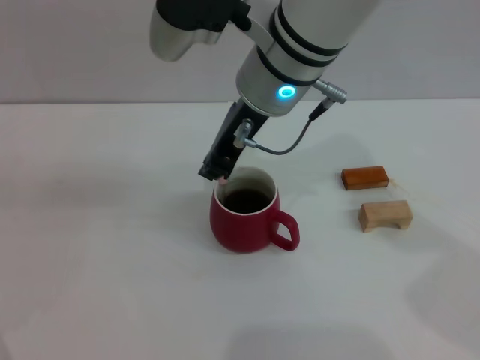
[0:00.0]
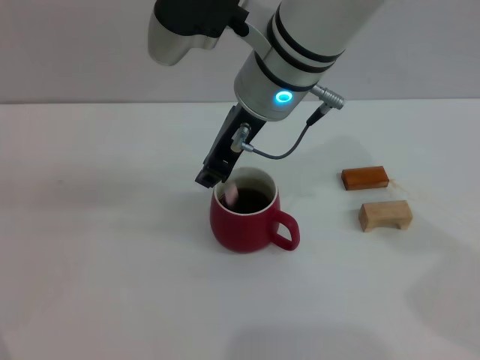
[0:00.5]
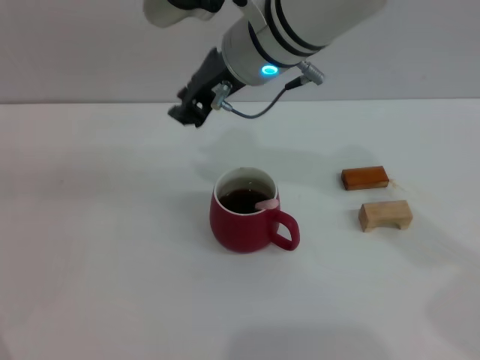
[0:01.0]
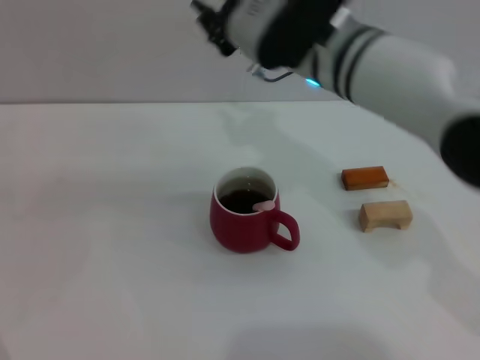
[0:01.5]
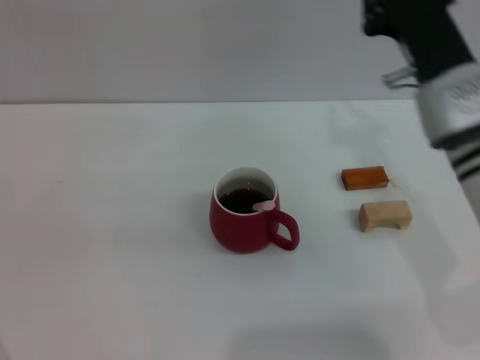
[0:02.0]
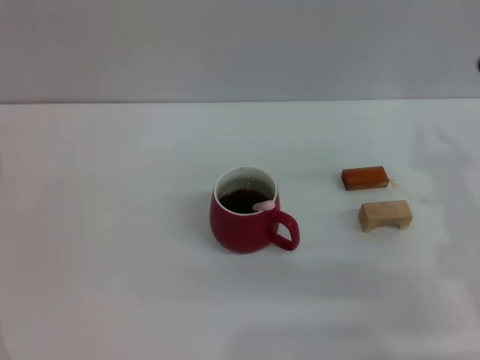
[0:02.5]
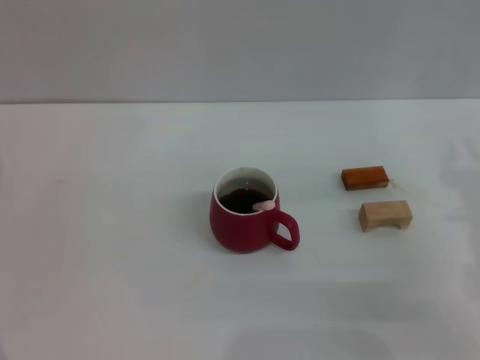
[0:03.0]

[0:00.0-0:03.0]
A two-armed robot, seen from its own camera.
Task of the whole recording: Move the red cup to the center, lift the pink spoon, stir it three times in the cup, and put the spoon into the cup.
0:00.0 to 0:01.5: The right gripper shifts some 5 cm to the right.
0:01.5 to 0:03.0: The right gripper moves to the right, downward and backward, approximately 25 cm.

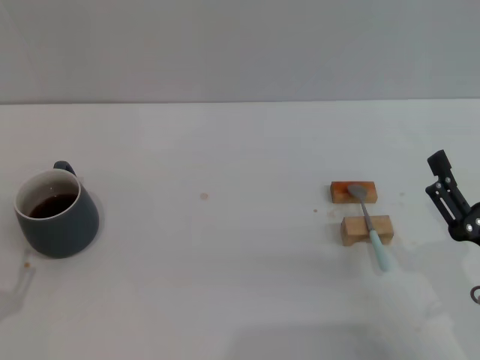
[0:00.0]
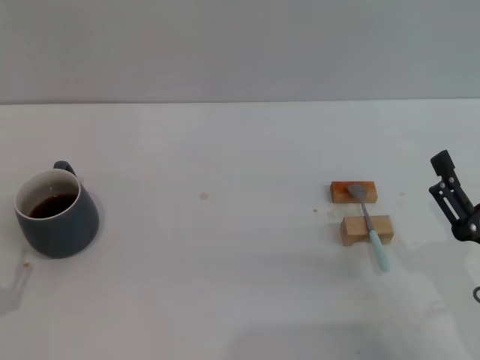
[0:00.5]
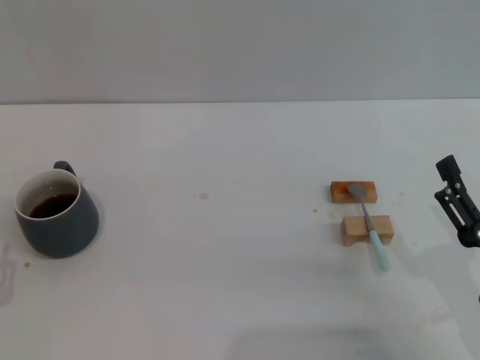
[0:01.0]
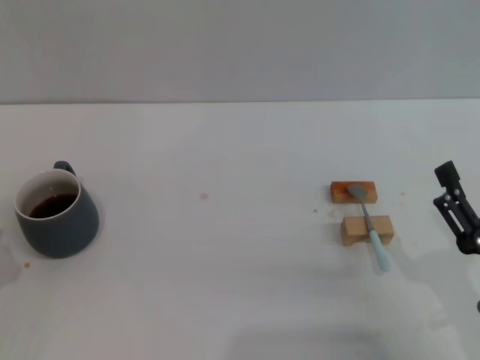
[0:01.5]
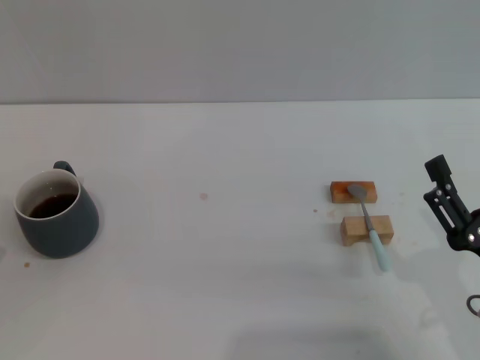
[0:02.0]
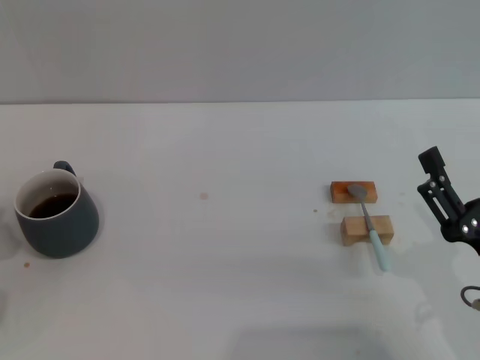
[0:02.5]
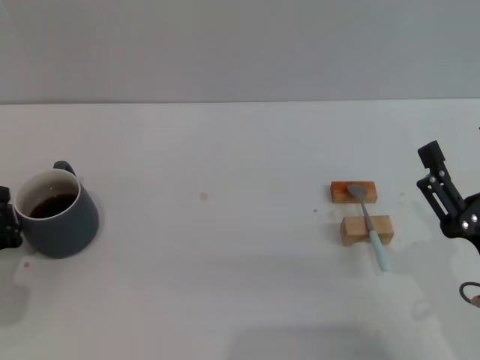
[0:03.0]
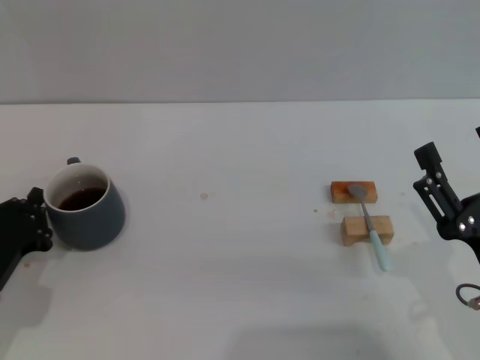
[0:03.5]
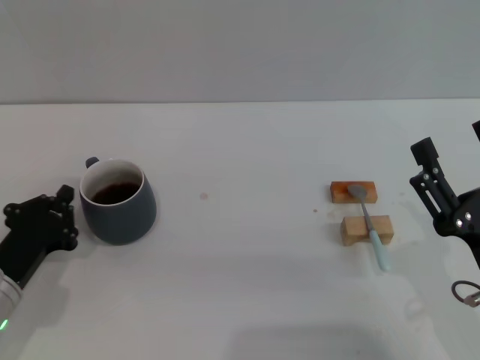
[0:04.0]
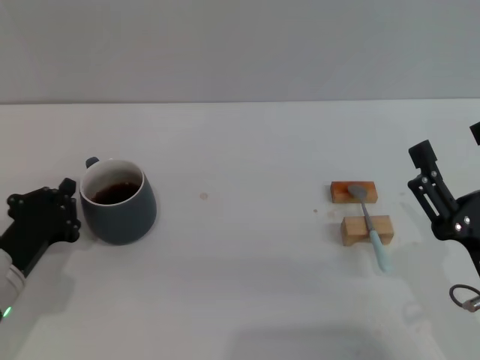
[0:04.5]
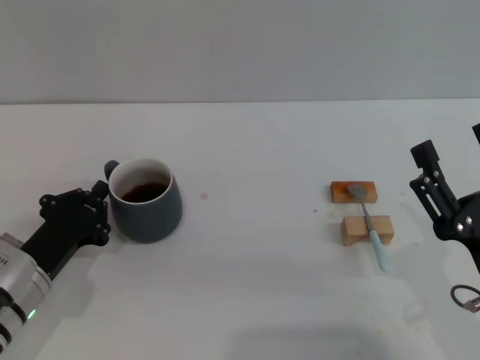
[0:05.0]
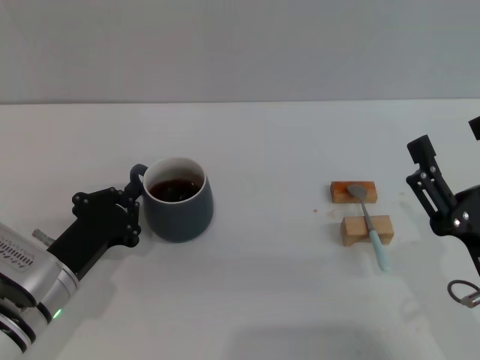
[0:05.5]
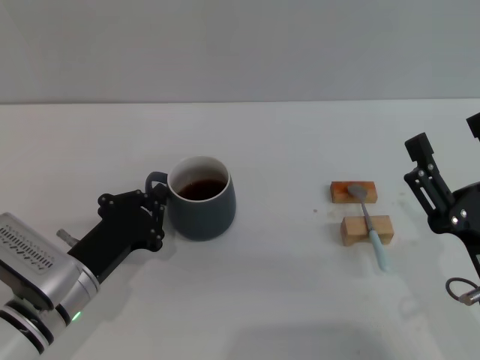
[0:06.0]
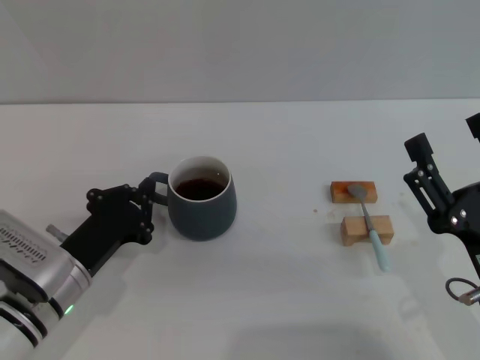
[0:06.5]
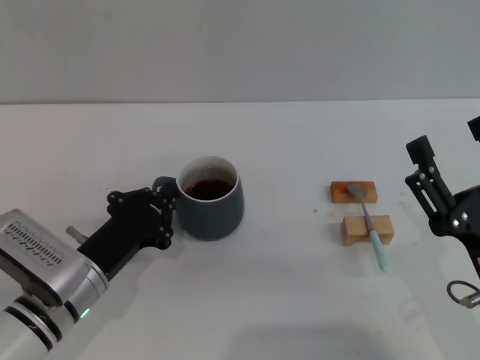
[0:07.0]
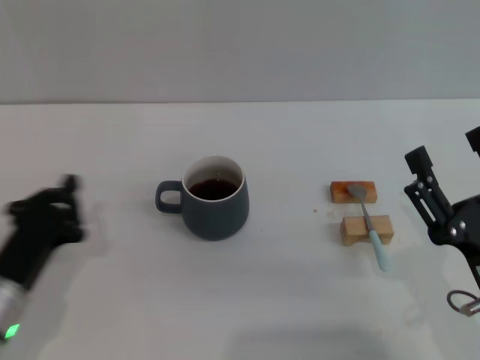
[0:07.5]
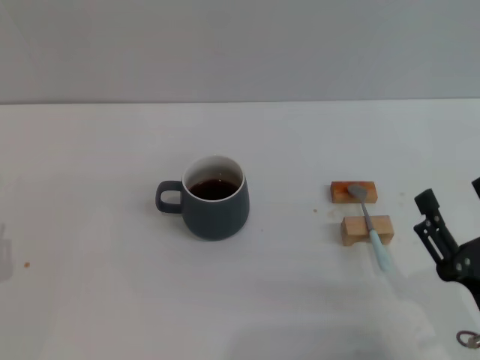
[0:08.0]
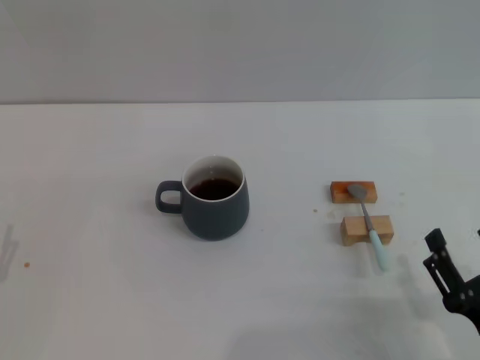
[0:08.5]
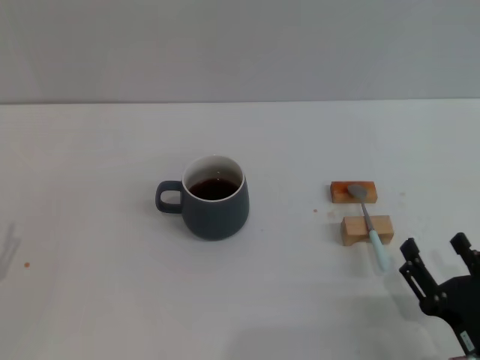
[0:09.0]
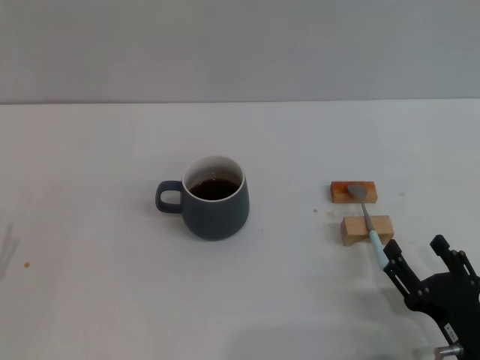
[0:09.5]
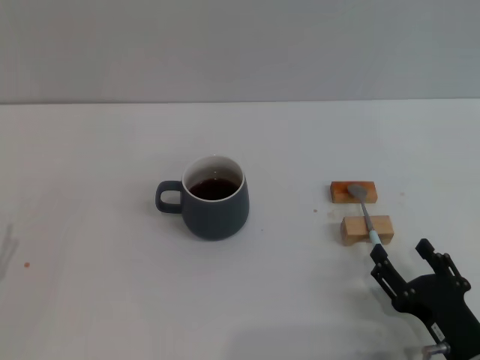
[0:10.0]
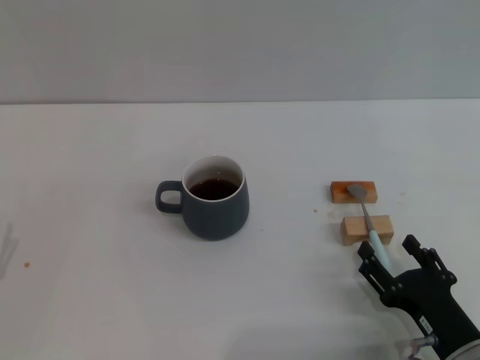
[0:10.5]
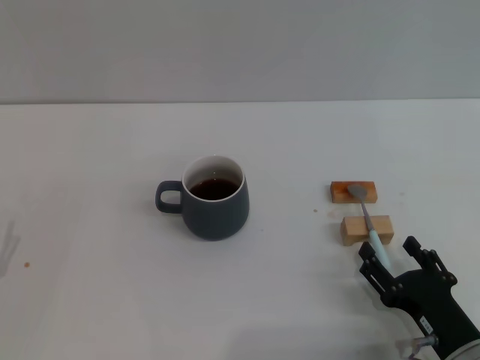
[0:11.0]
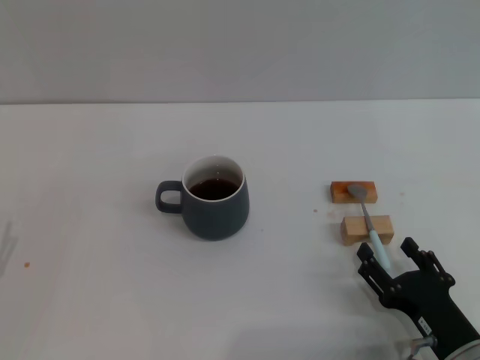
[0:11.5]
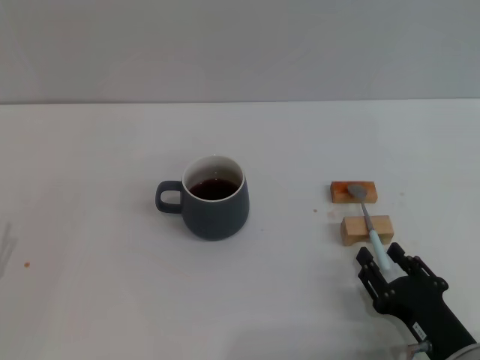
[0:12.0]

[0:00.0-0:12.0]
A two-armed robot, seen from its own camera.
Task of the whole recording: Move the grey cup to the center, lift the blue spoon, stir it three times in the cup, and put the spoon into the cup.
Step, 0:00.0 to 0:07.0: Move the cup with coffee to the center of view with the left gripper.
0:02.0 to 0:04.0: The left gripper is displaced to the right by about 5 cm.
0:04.0 to 0:06.0: The left gripper goes roughly 5 cm to the right.
0:06.0 to 0:08.0: The left gripper shifts some 15 cm to the left and backward.
0:08.0 to 0:10.0: The right gripper ends up some 5 cm from where it was.
0:10.0 to 0:12.0: Neither gripper changes place.

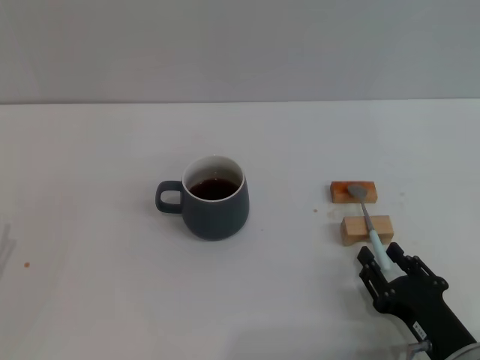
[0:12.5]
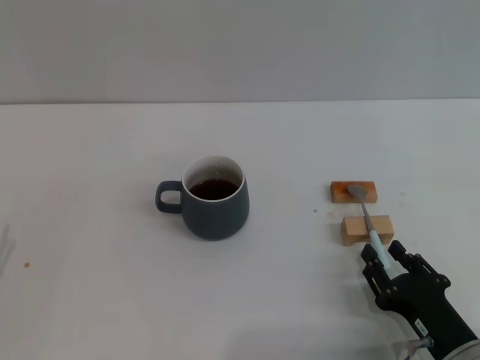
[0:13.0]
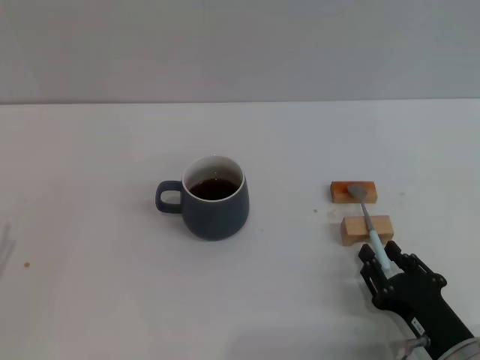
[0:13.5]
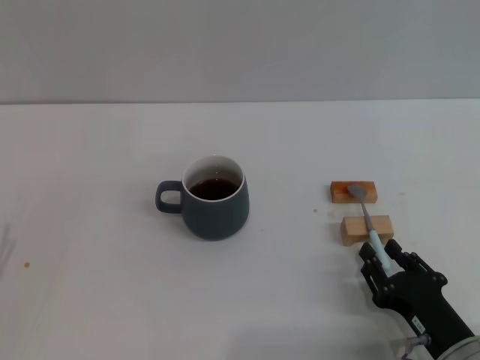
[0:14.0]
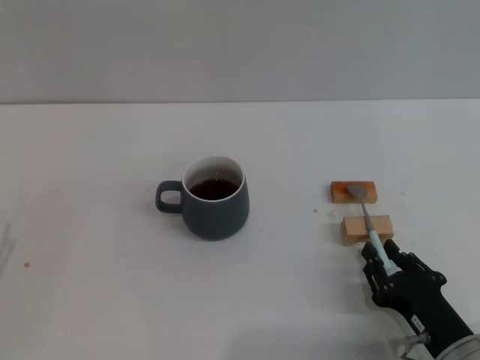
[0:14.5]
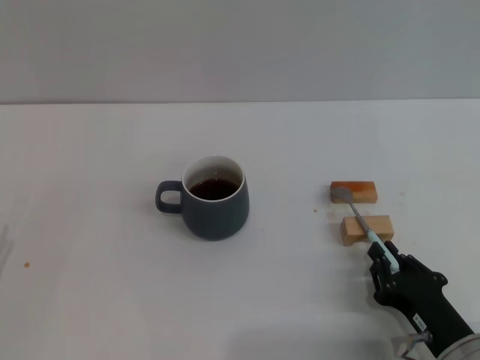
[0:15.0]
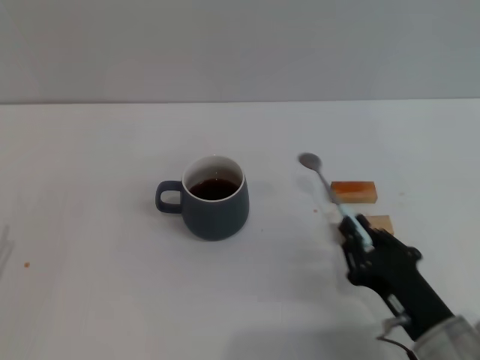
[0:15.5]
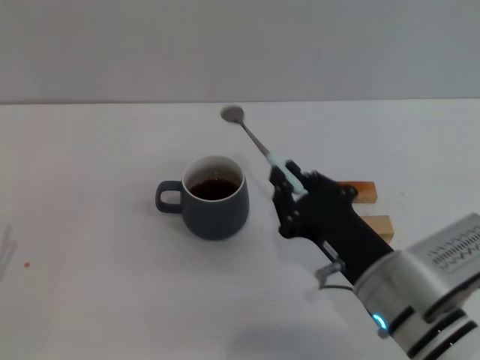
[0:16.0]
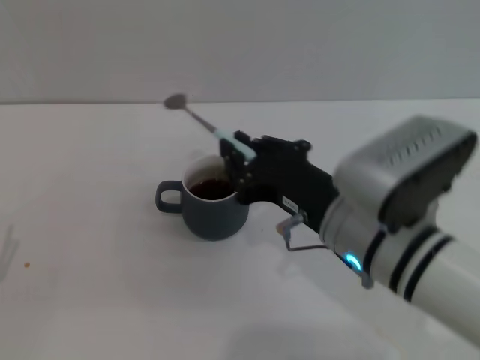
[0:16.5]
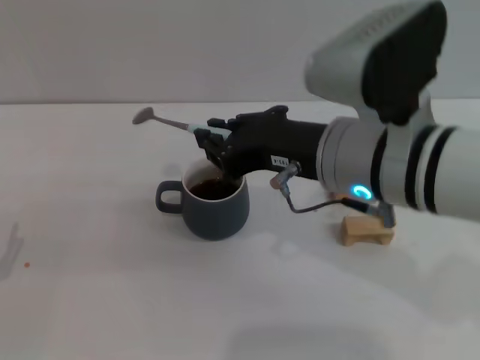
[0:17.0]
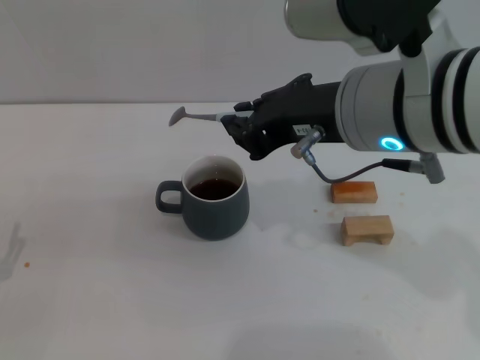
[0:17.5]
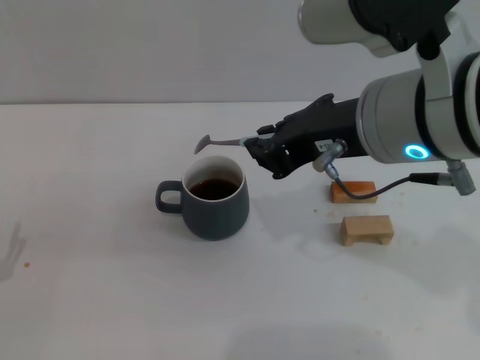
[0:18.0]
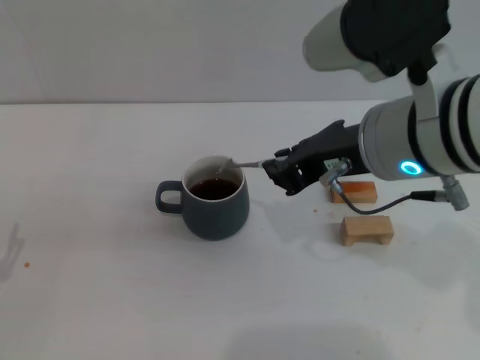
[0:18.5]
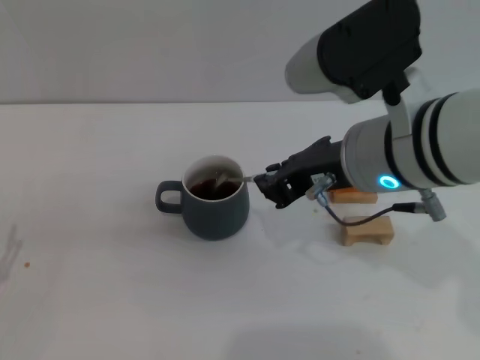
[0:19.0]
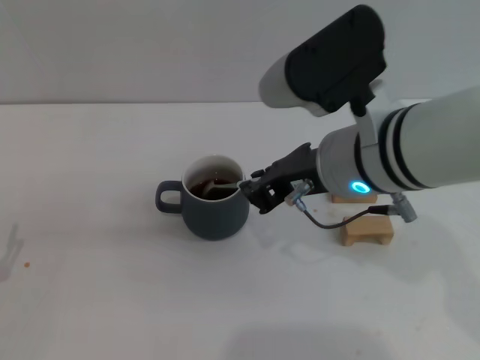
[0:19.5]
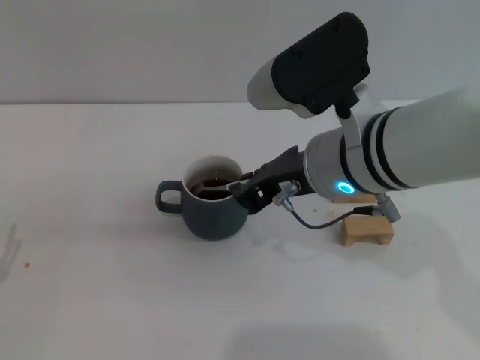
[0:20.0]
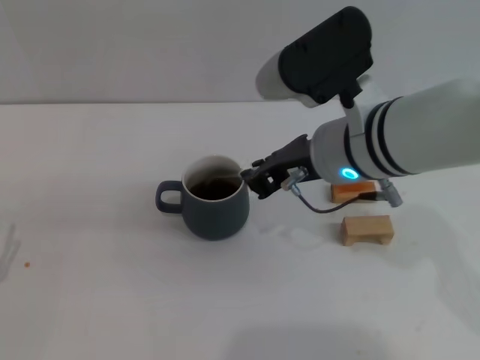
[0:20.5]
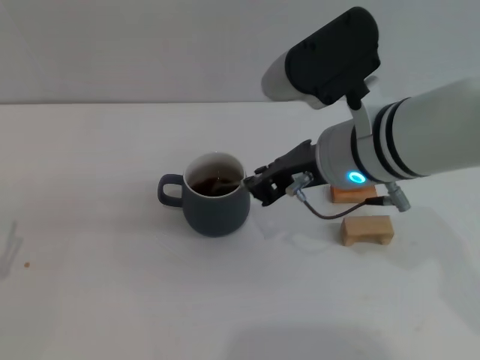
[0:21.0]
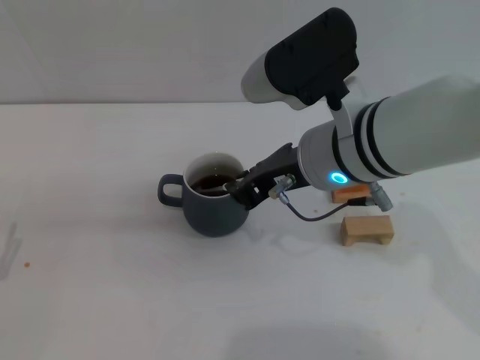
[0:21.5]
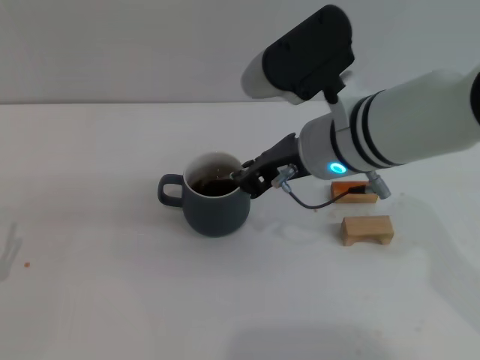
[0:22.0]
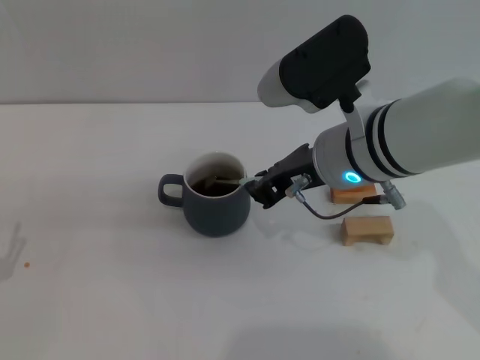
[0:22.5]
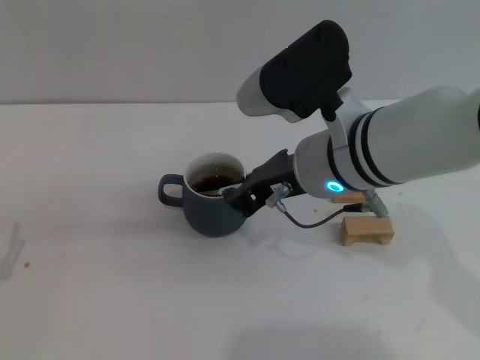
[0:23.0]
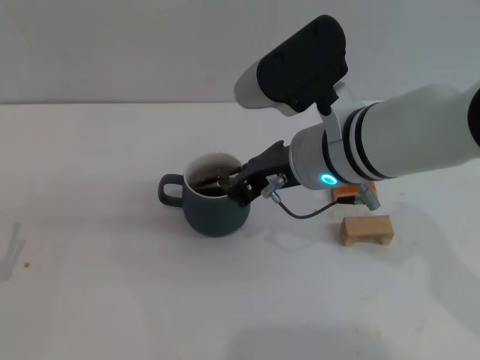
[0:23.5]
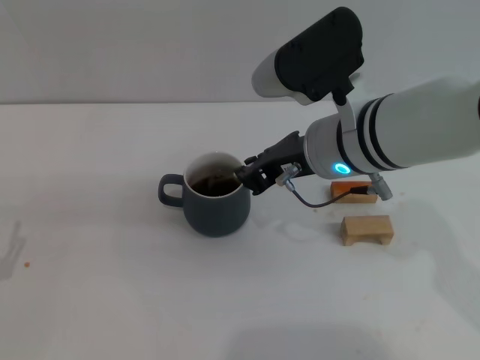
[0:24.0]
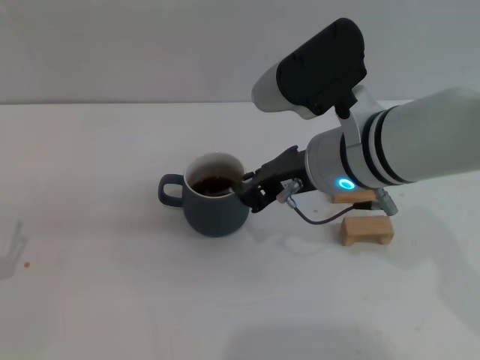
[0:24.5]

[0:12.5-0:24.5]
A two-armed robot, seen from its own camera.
Task of the whole recording: Move the grey cup to the center, lift the blue spoon, stir it three times in the cup, and put the spoon into the cup.
Step, 0:12.5 to 0:15.0: Pick up the spoon with the right gripper.
0:12.5 to 0:14.5: Neither gripper changes place.
0:14.5 to 0:16.5: The right gripper goes roughly 20 cm upward, to the left and forward.
0:16.5 to 0:18.5: The right gripper heads upward, covering about 10 cm.
0:18.5 to 0:20.5: The right gripper goes roughly 5 cm downward.
0:20.5 to 0:24.5: The grippers move only a little.
